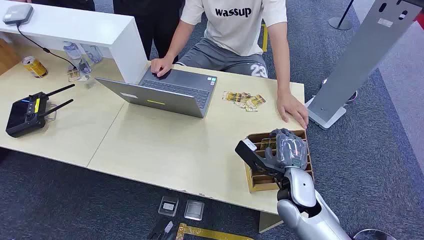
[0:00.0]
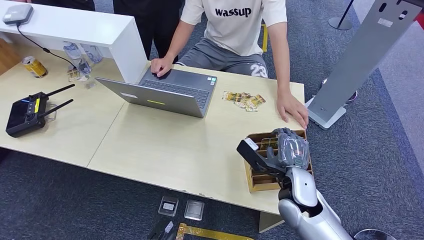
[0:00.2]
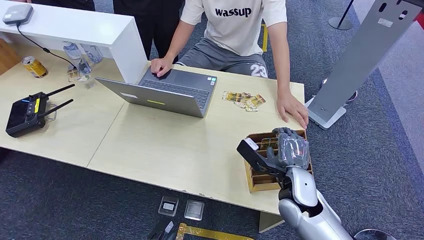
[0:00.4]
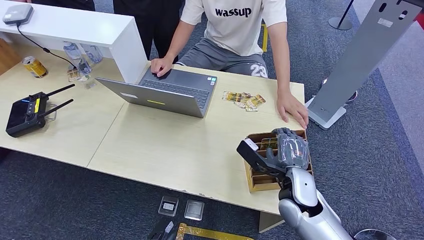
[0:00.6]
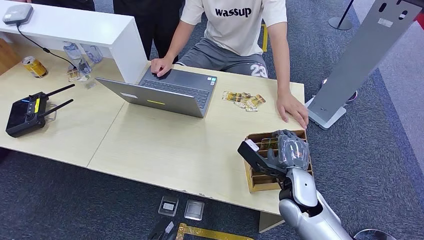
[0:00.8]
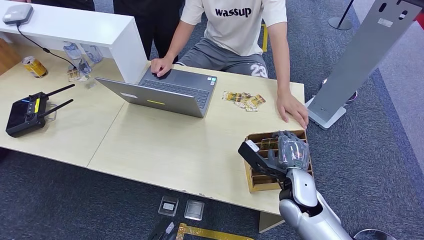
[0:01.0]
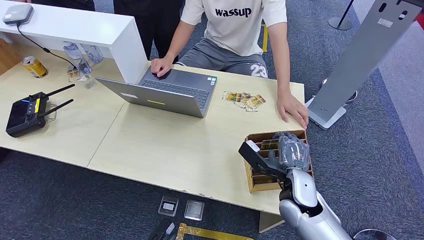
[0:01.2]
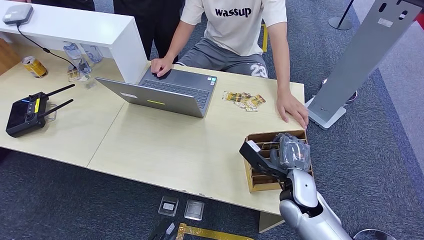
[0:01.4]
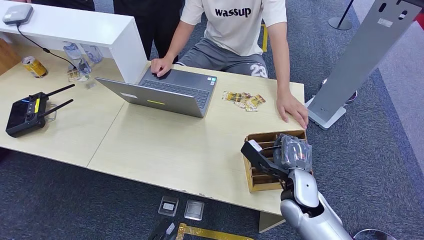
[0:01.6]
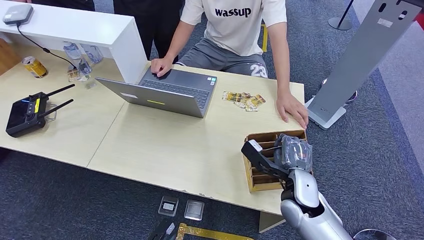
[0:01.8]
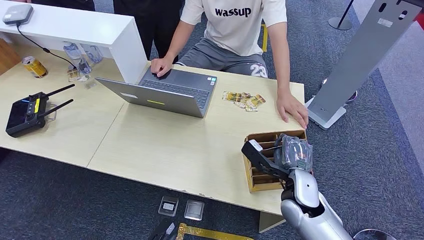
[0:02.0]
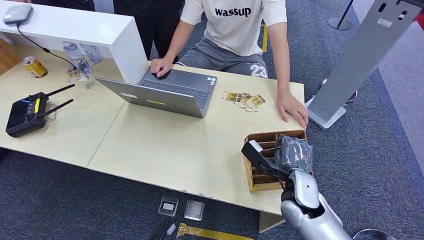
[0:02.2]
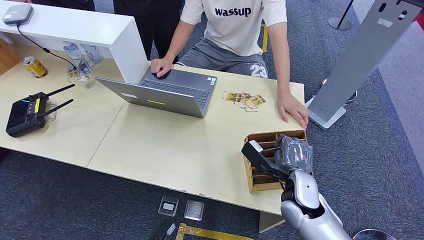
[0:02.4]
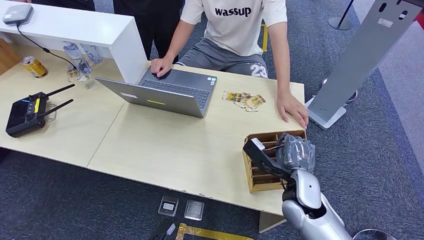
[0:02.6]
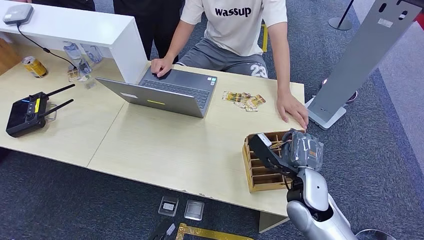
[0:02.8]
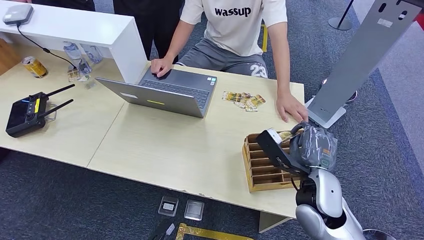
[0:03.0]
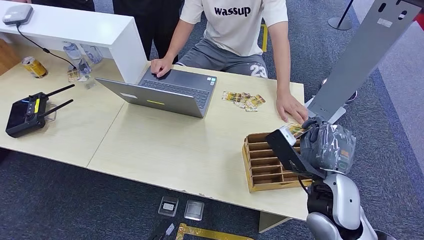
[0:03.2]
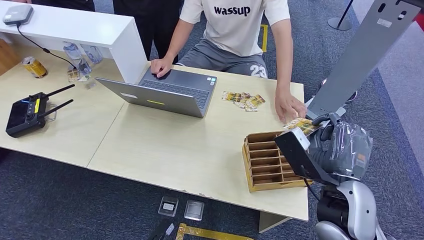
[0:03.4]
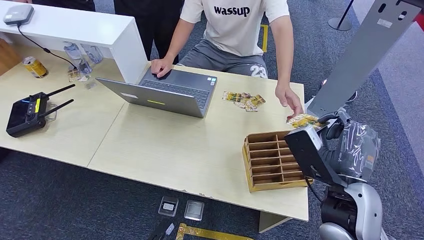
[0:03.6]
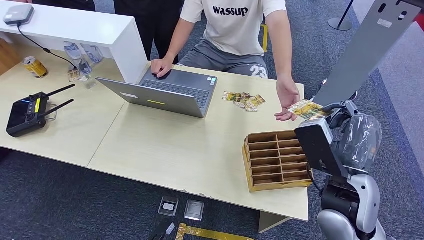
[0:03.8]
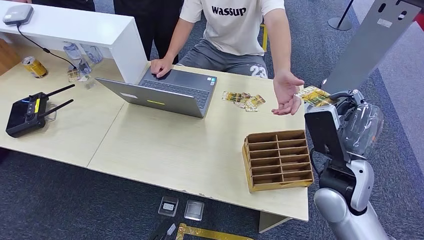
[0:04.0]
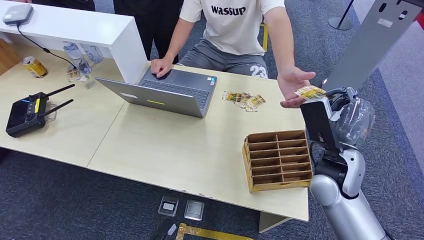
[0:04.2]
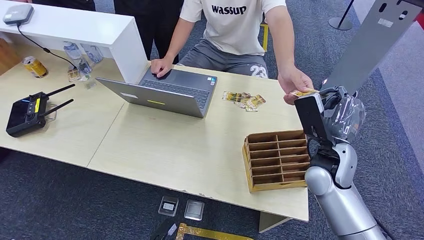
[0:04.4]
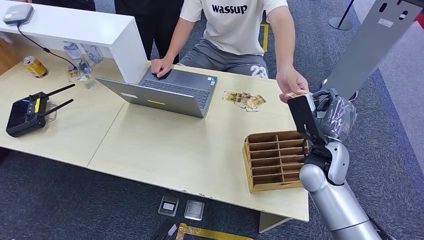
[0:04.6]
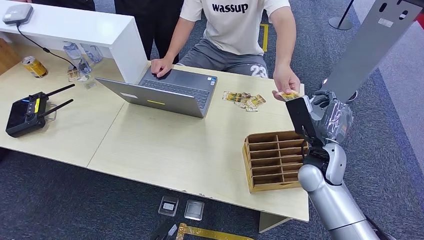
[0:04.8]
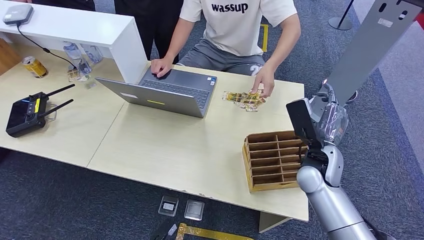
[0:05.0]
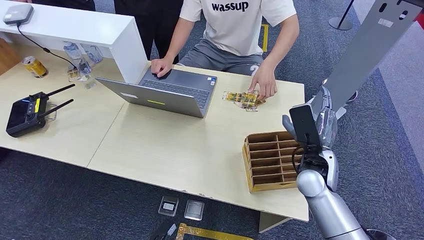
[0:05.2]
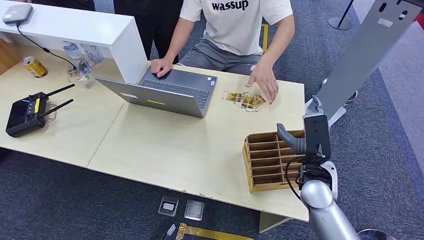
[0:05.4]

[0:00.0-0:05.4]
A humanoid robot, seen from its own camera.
Step, 0:00.0 to 0:03.2: Pick up the room card from the card holder.
Step, 0:03.8 to 0:05.4: Hand the room card to the target.
0:01.4 to 0:02.8: The right hand heads upward, covering roughly 10 cm.
0:02.8 to 0:04.0: The right hand heads forward, covering some 5 cm.
0:04.0 to 0:05.4: The right hand goes approximately 10 cm backward.
